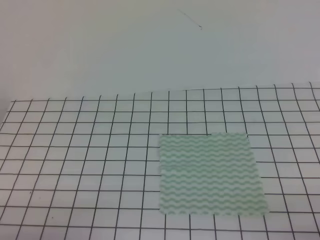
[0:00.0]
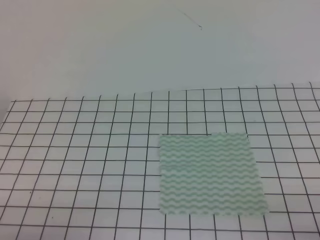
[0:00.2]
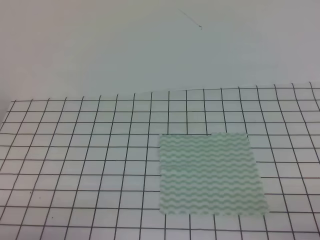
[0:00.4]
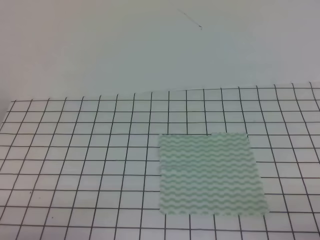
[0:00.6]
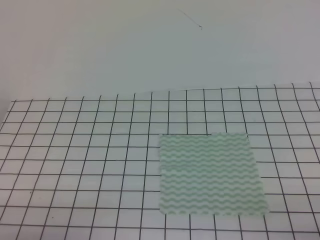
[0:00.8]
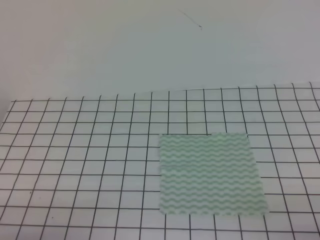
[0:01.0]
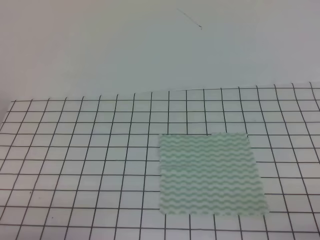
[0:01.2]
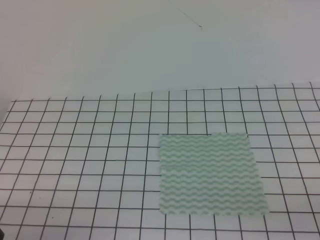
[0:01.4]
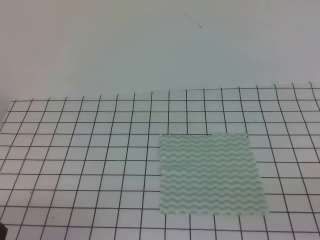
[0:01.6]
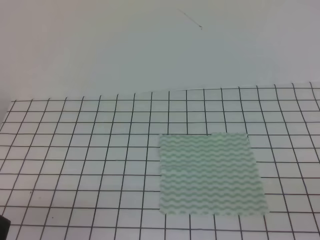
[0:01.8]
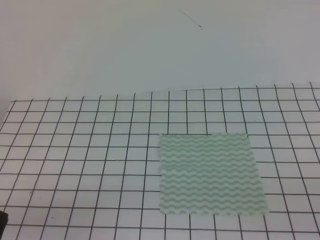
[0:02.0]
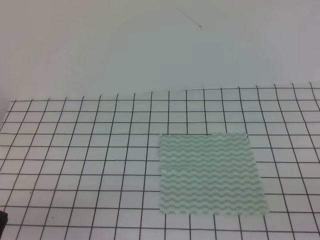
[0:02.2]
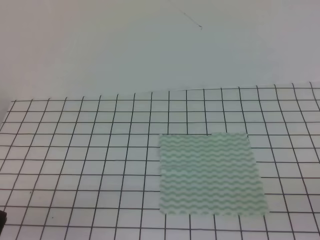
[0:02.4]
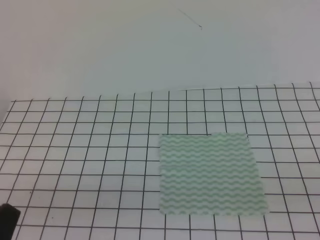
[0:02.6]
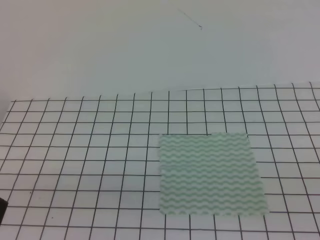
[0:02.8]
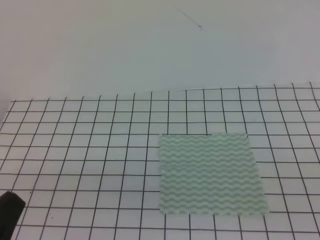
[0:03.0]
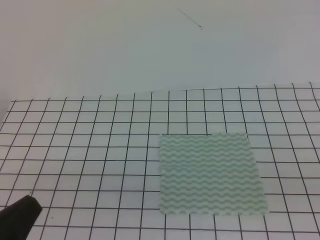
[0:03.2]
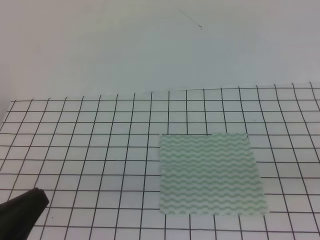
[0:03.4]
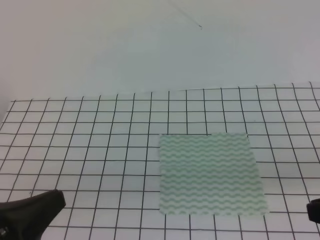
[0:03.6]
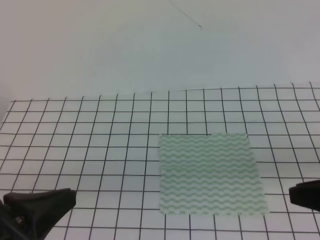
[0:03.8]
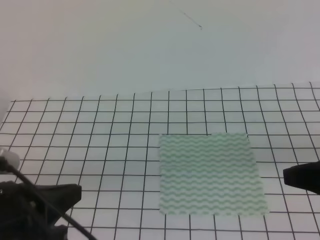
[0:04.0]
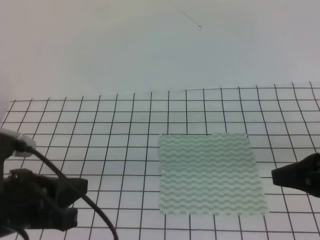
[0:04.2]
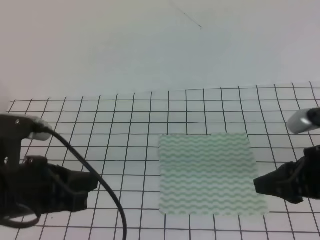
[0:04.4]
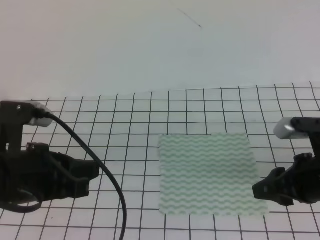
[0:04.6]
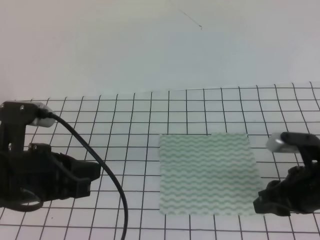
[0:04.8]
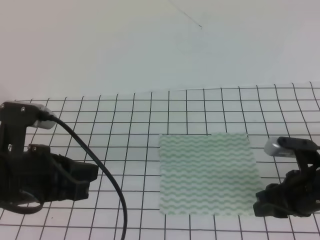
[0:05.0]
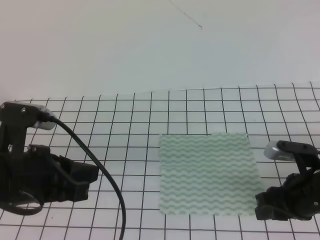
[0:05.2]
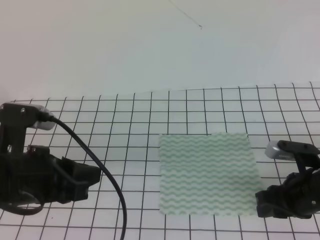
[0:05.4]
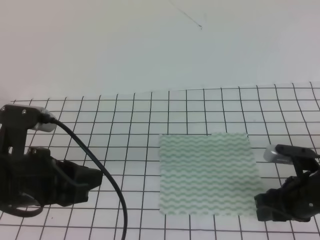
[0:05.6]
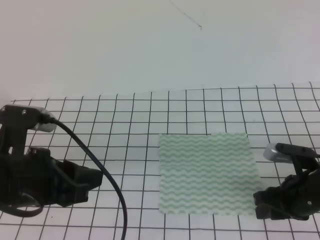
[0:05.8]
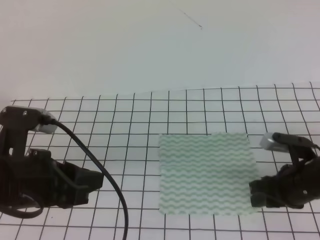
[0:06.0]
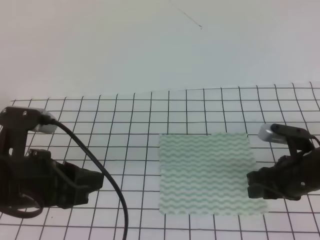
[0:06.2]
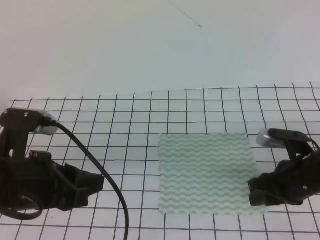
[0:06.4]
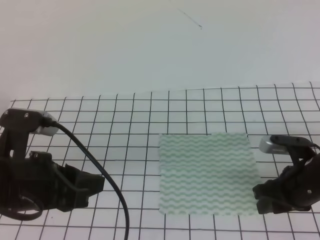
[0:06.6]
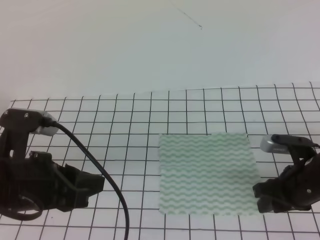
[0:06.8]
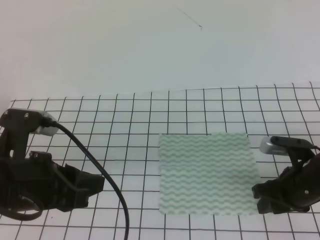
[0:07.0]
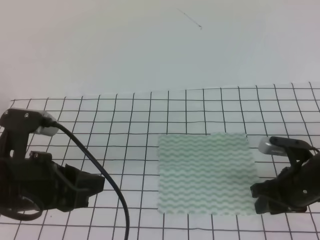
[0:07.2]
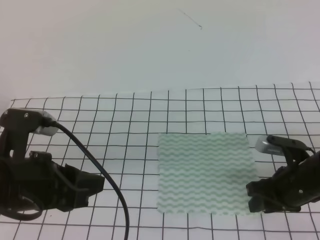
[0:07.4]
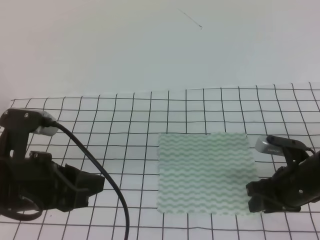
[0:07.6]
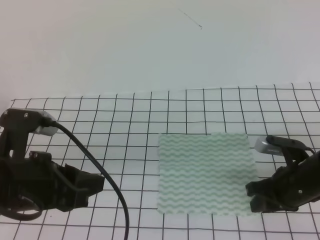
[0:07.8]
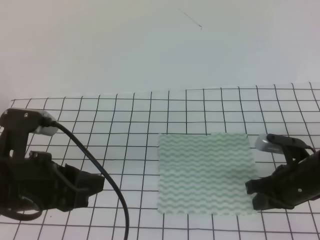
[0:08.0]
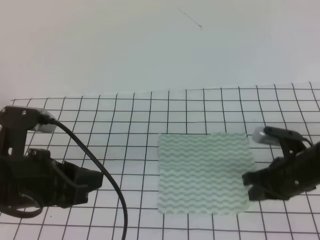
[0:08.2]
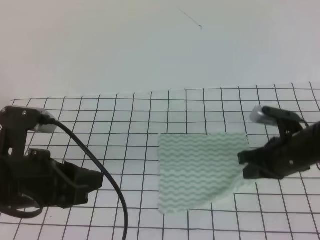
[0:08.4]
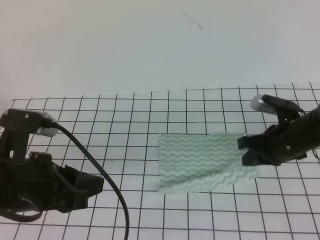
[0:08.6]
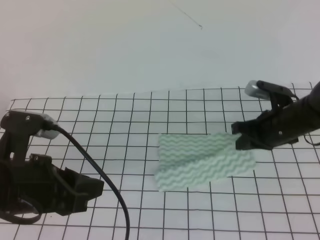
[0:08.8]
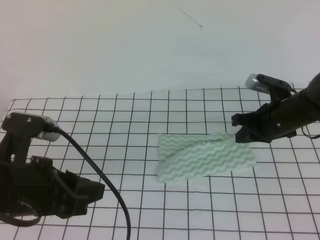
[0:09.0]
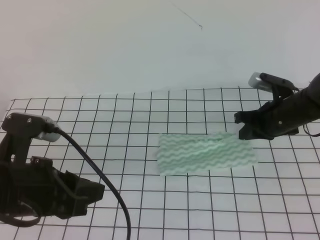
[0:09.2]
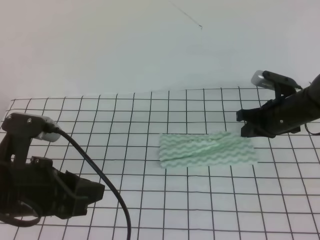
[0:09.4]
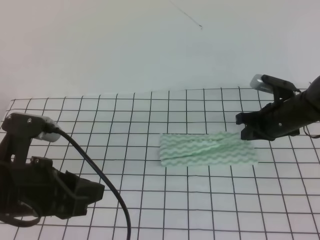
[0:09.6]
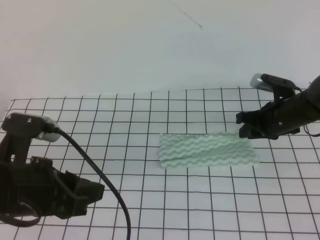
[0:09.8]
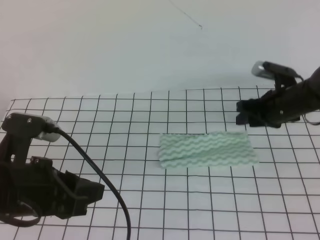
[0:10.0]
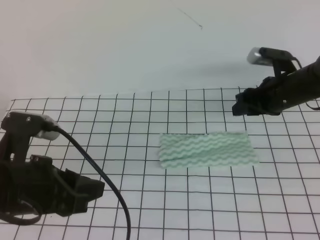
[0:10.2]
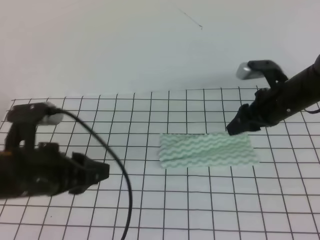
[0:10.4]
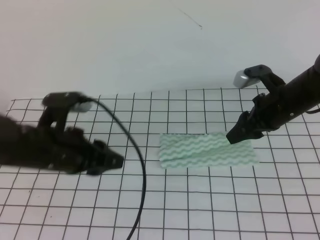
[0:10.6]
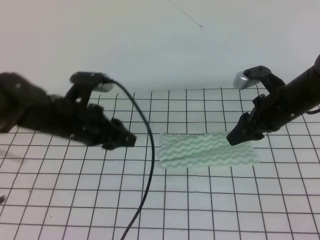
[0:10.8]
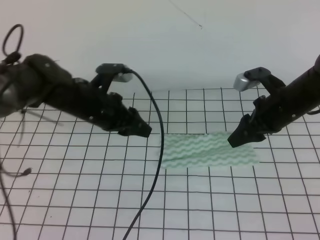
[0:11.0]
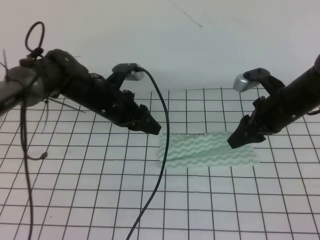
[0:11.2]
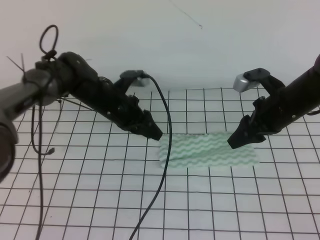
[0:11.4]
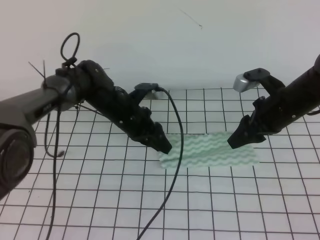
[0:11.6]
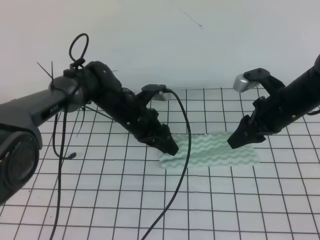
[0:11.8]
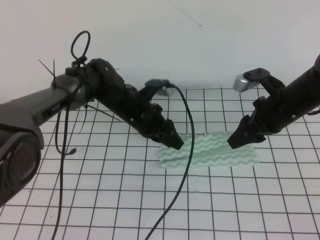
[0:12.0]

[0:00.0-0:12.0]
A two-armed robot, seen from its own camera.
0:01.6 to 0:03.0: The left gripper shifts some 10 cm upward.
0:03.0 to 0:04.4: Both grippers move forward, roughly 15 cm. The right gripper opens.
0:04.4 to 0:06.0: The right gripper travels downward by roughly 10 cm, while the left gripper opens its fingers.
0:06.0 to 0:07.6: The grippers stay close to where they were, moving slightly.
0:07.6 to 0:09.0: The right gripper travels forward by approximately 10 cm, and closes its fingers.
0:09.0 to 0:10.4: The right gripper opens its fingers.
0:10.4 to 0:12.0: The left gripper shifts about 30 cm forward, to the right and downward.

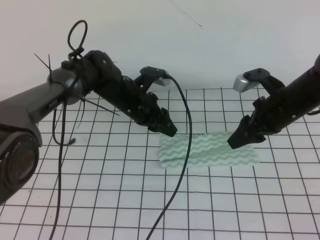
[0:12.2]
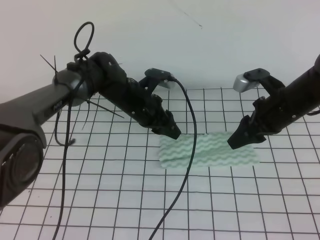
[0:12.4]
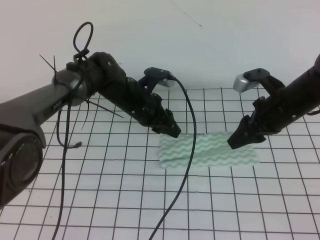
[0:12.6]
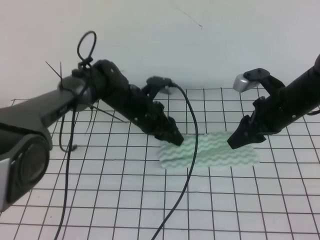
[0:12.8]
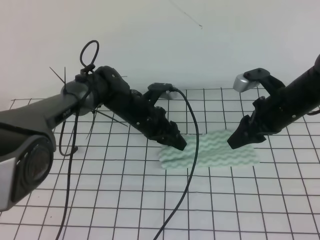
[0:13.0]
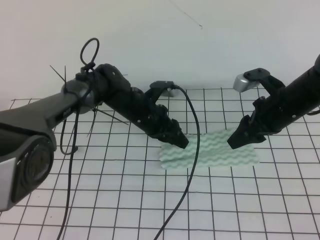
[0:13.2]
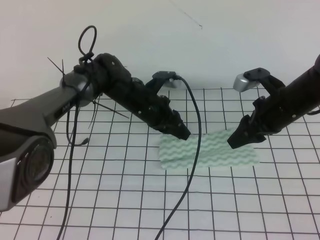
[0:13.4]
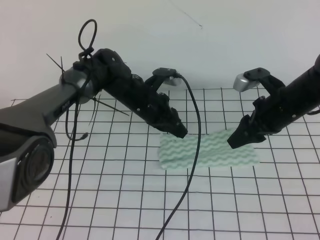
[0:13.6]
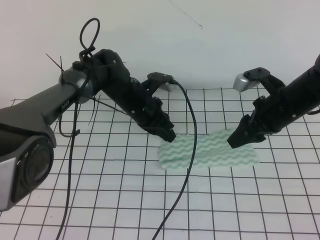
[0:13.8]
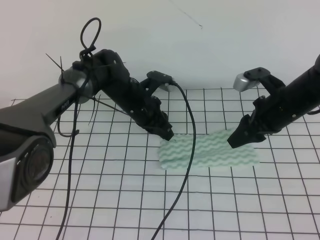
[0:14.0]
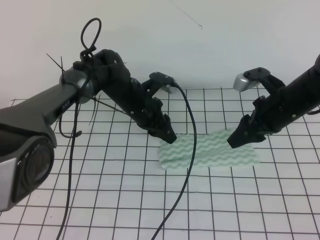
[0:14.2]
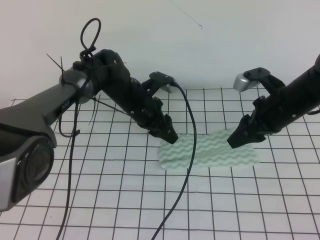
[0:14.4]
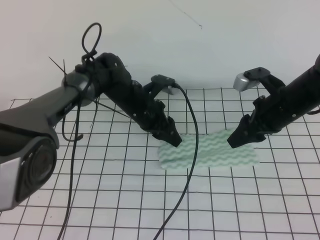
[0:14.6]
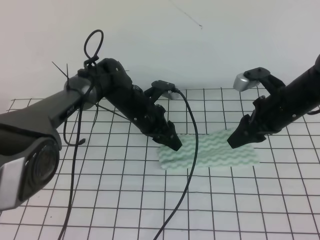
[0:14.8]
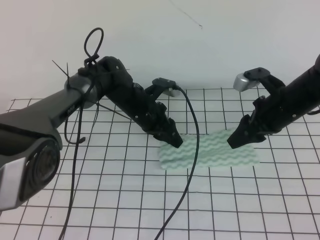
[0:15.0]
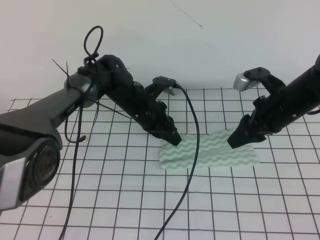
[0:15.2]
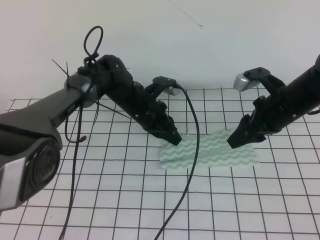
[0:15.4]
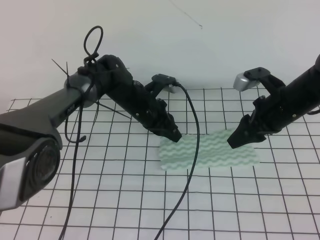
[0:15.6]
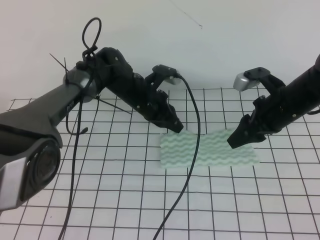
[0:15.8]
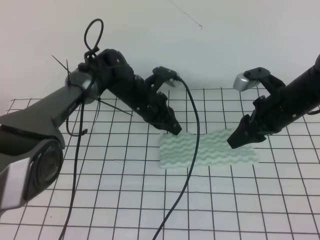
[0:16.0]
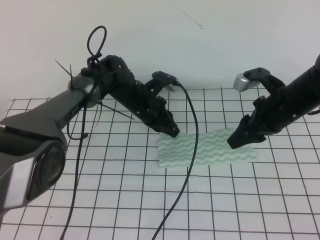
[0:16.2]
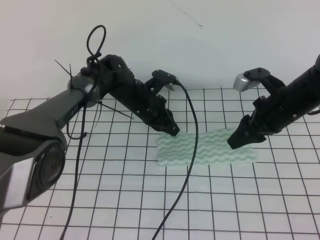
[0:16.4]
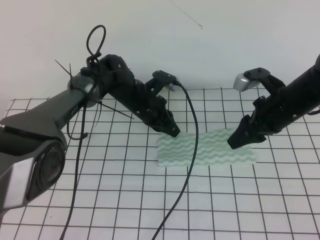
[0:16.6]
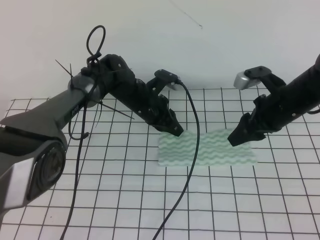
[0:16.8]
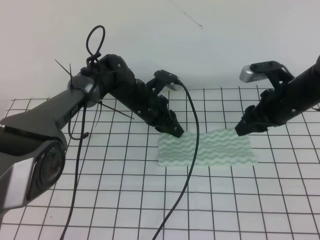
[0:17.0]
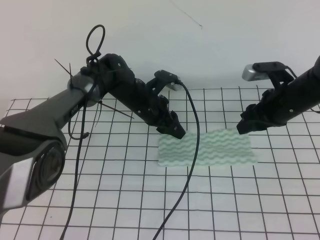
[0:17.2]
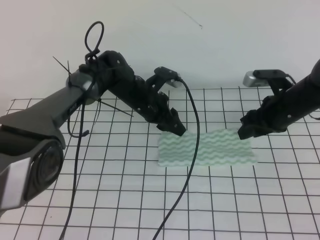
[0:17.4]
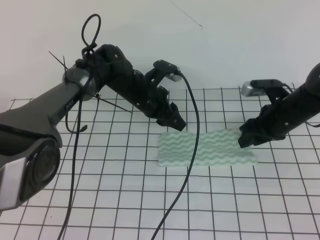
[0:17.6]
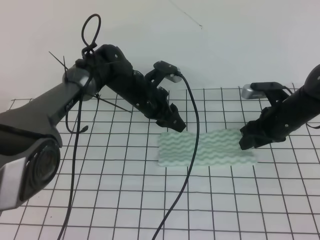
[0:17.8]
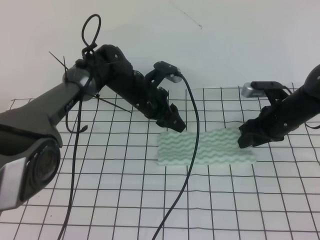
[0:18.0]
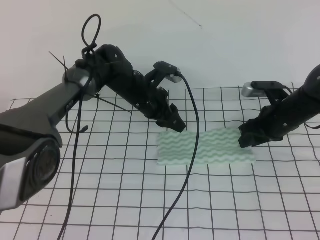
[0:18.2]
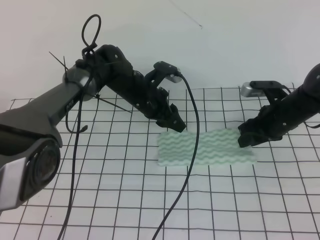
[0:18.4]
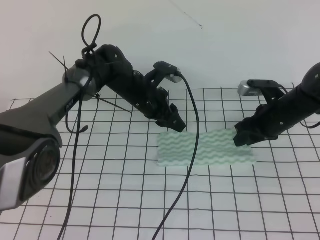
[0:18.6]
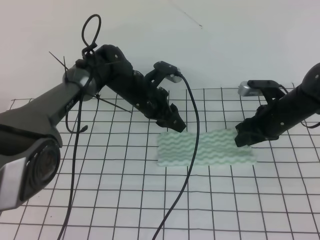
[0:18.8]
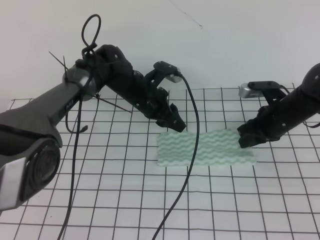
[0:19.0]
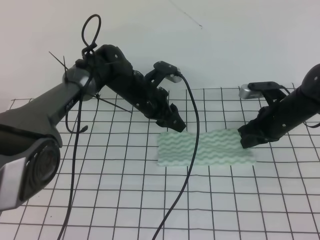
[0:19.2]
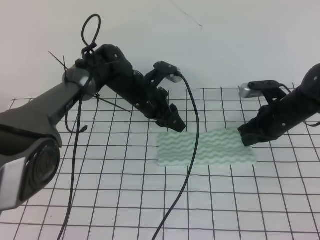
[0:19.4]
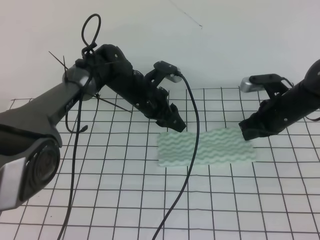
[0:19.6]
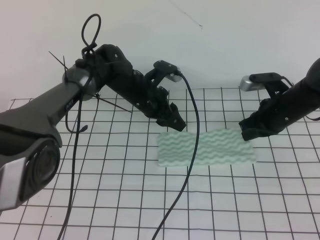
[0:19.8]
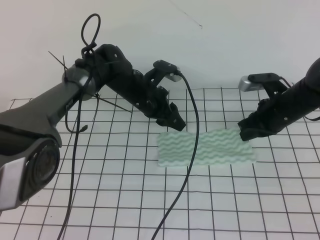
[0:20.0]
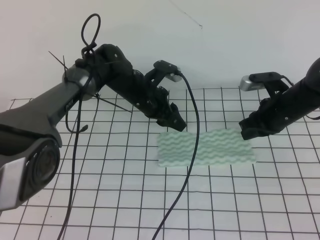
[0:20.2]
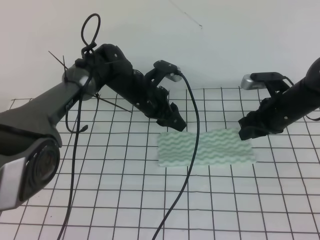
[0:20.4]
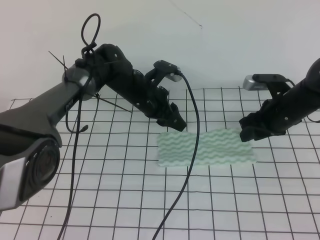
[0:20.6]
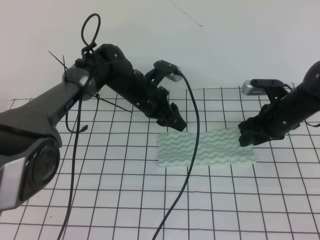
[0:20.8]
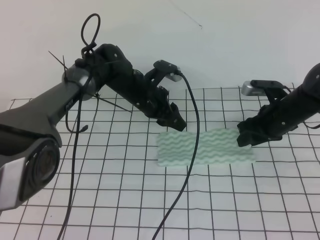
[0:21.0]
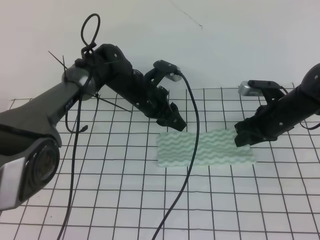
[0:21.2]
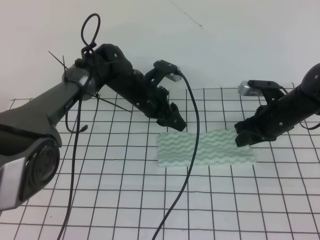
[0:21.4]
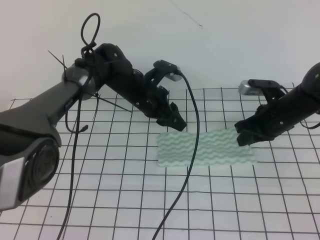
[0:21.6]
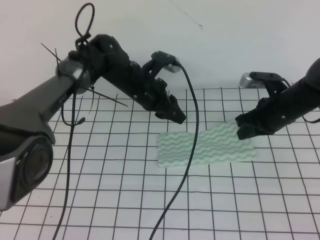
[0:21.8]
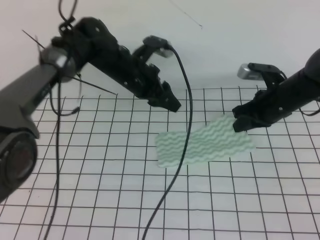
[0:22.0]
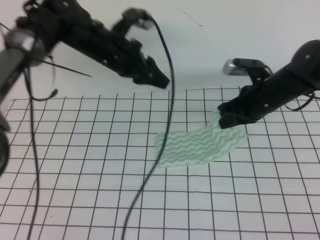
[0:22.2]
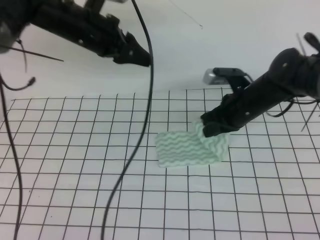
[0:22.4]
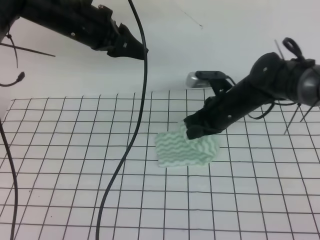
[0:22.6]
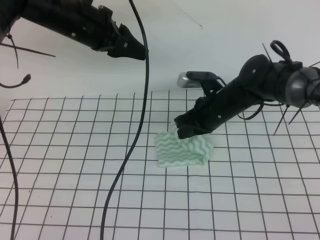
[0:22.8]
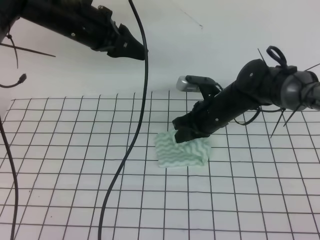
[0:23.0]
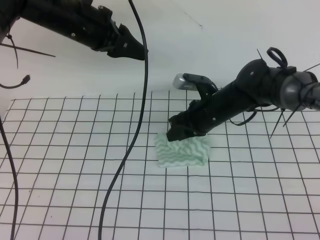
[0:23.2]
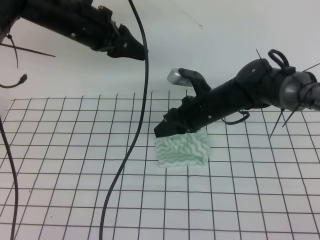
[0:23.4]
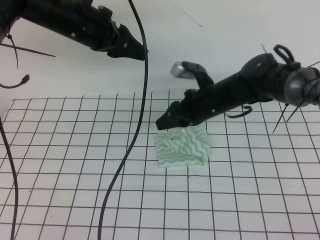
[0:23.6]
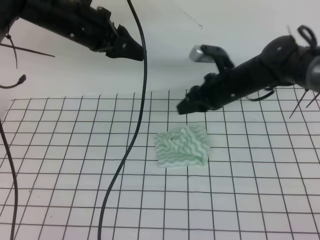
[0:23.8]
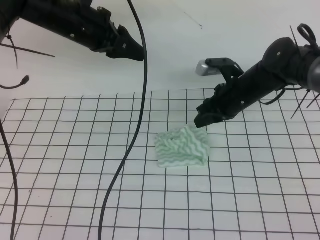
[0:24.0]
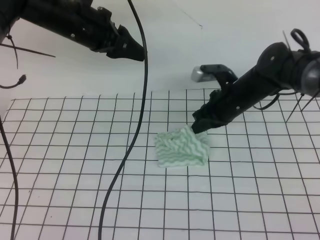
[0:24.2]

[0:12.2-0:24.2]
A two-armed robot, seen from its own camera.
0:12.2 to 0:13.8: The left gripper closes up.
0:13.8 to 0:15.2: The left gripper opens, then closes again.
0:15.2 to 0:16.6: The grippers make only small movements.
0:16.6 to 0:18.2: The left gripper opens up, while the right gripper moves downward, about 5 cm.
0:18.2 to 0:19.8: The right gripper closes its fingers.
0:19.8 to 0:21.2: The right gripper opens up.
0:21.2 to 0:22.6: The right gripper moves to the left, about 10 cm, and closes; the left gripper shifts about 20 cm upward and to the left.
0:22.6 to 0:24.2: The right gripper opens and closes again.
